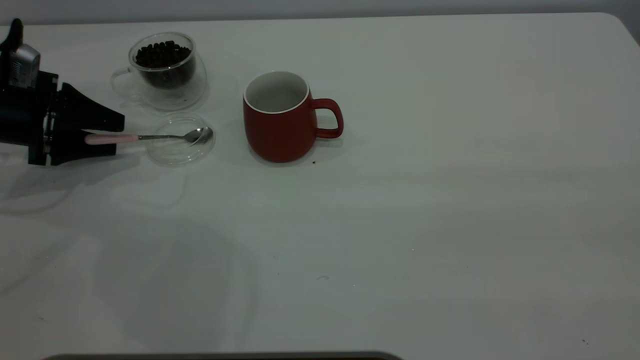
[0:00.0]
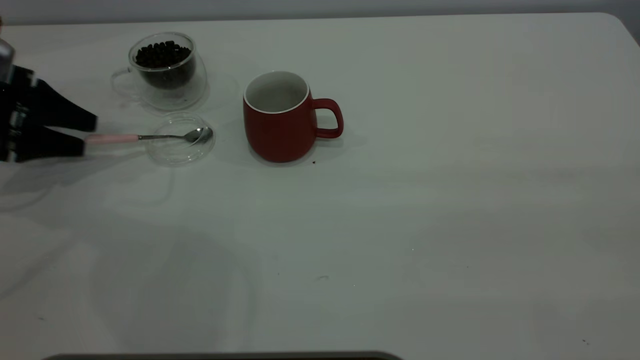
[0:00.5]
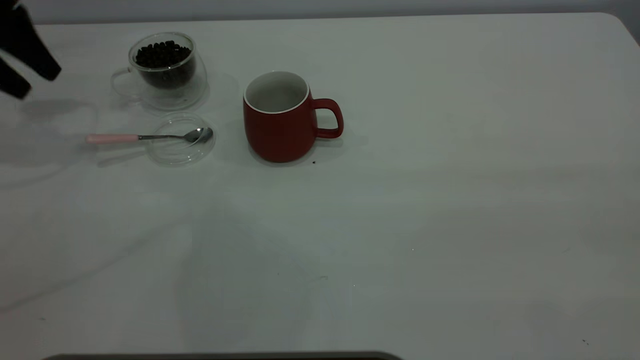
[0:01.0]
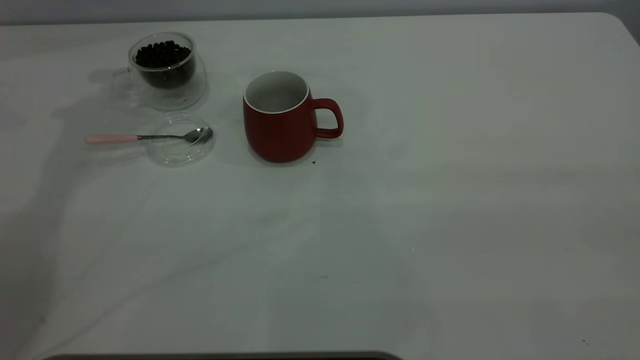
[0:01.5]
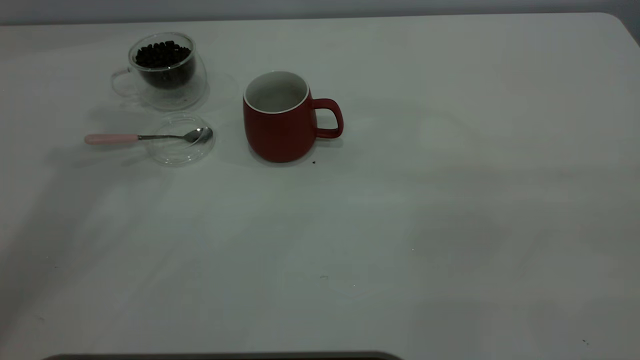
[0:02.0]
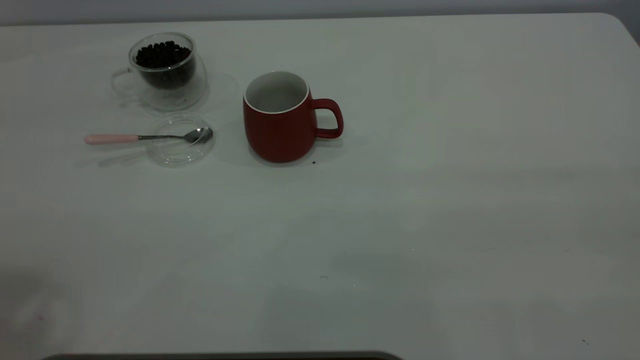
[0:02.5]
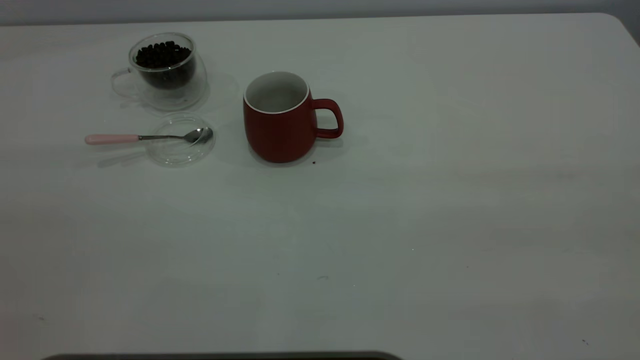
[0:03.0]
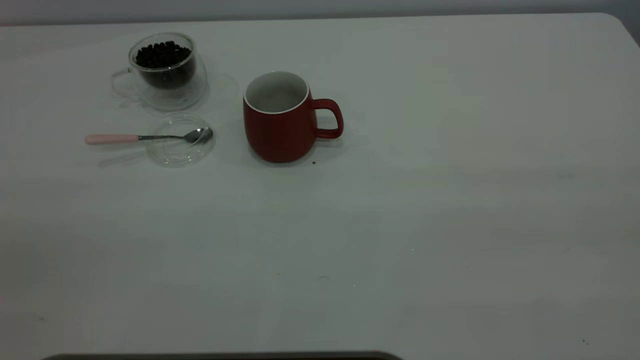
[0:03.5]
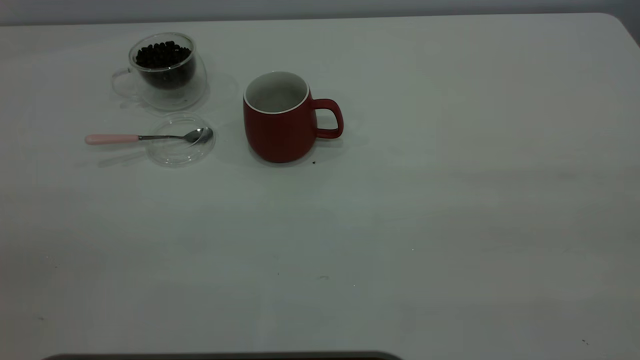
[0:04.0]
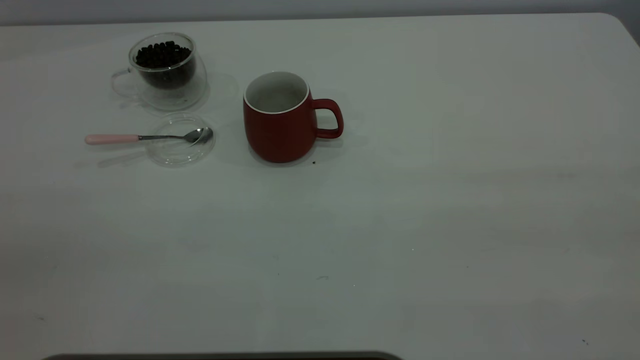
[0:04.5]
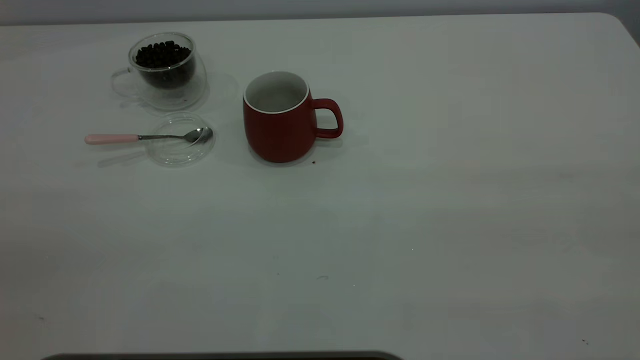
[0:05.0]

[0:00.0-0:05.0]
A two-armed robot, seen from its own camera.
Task of the whole recording: the right gripper place the red cup in the center of the table, the left gripper take the pink spoon from the cup lid and scoop out the coffee beans from the coffee cup and put them into the red cup, the left gripper put the spoon back into the cup lid.
0:00.0 to 0:02.5: The left gripper moves upward and backward, about 50 cm.

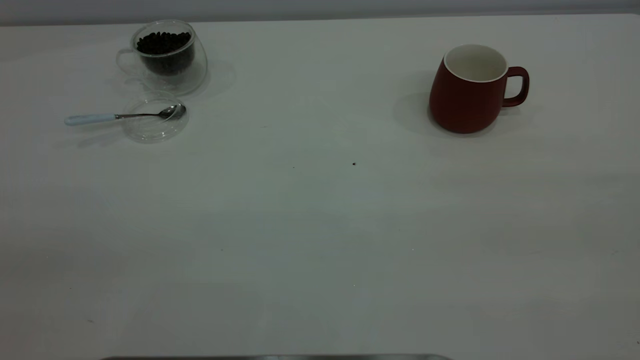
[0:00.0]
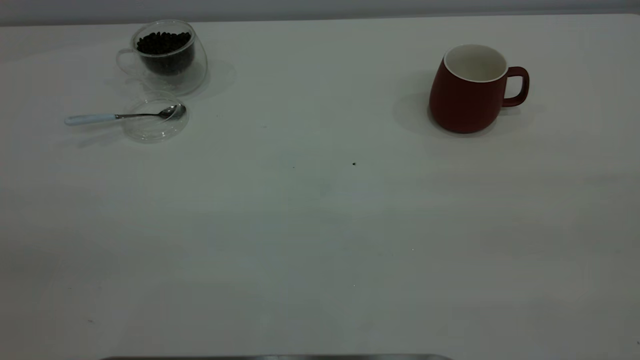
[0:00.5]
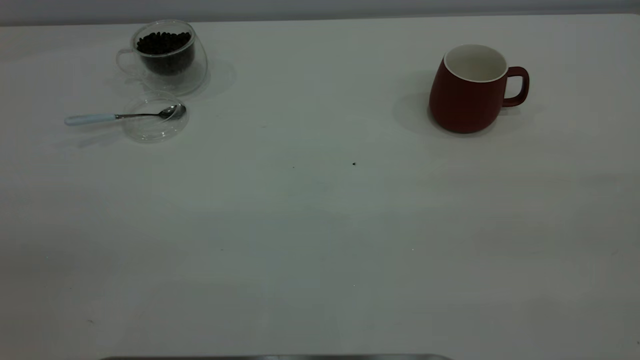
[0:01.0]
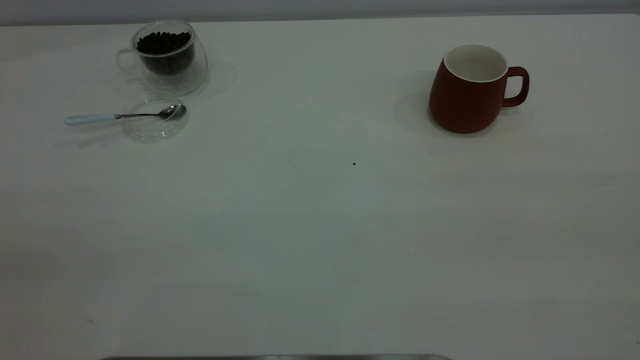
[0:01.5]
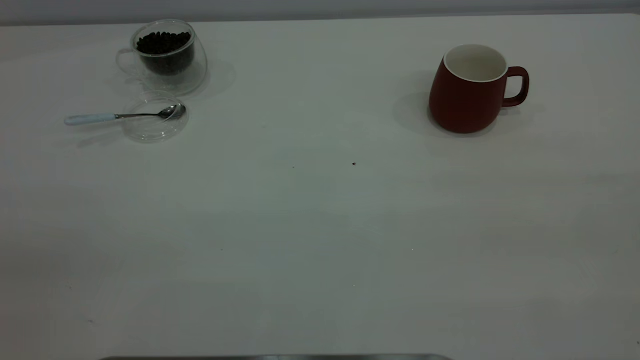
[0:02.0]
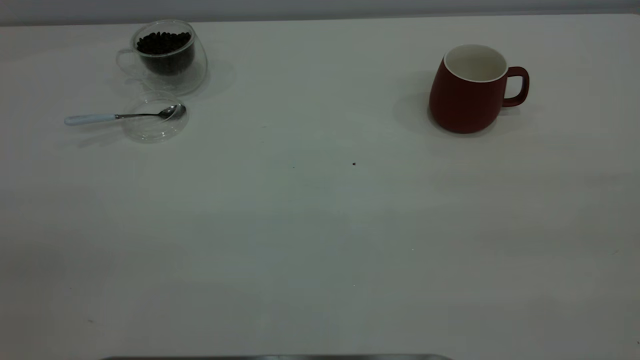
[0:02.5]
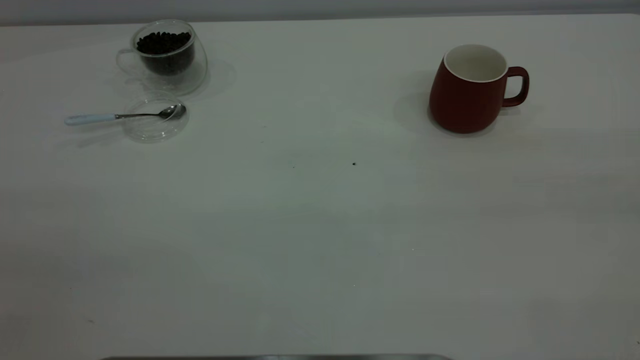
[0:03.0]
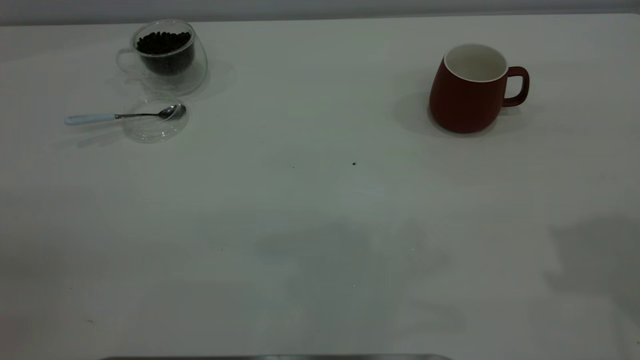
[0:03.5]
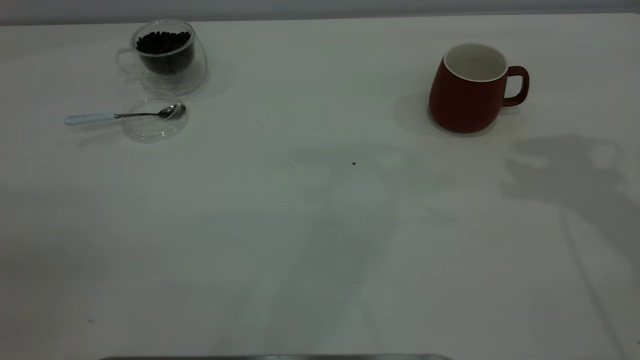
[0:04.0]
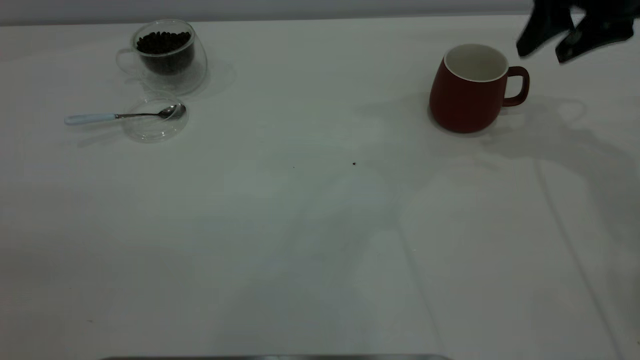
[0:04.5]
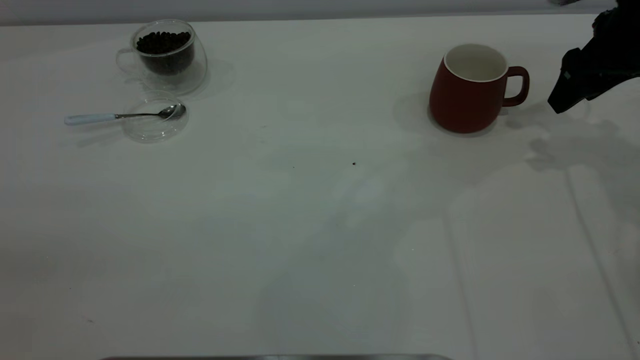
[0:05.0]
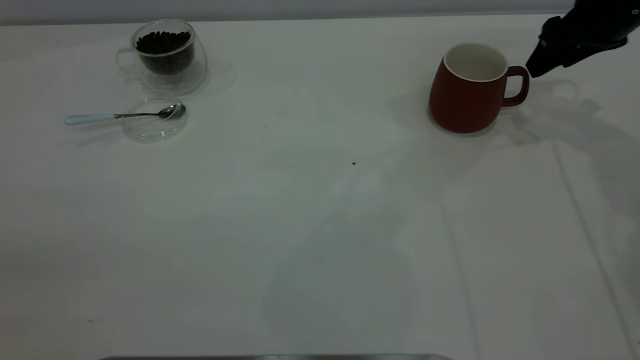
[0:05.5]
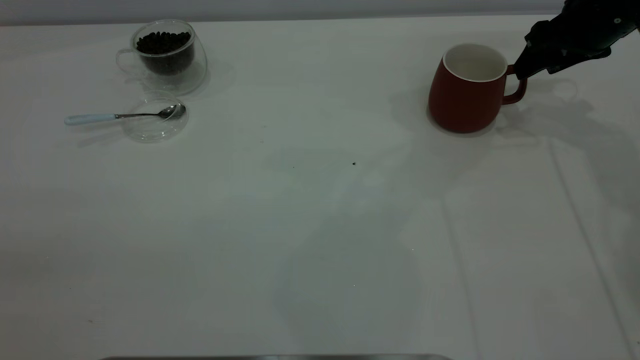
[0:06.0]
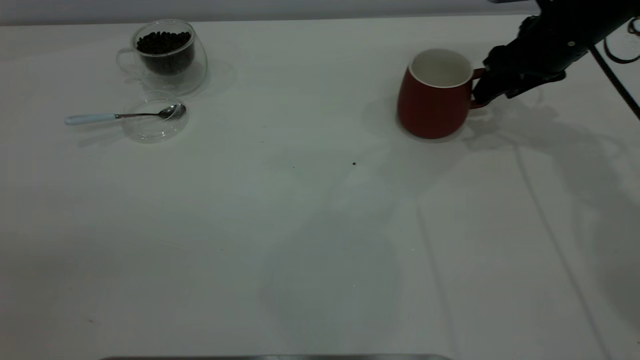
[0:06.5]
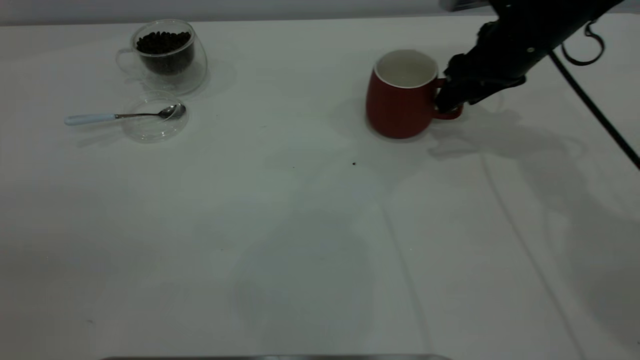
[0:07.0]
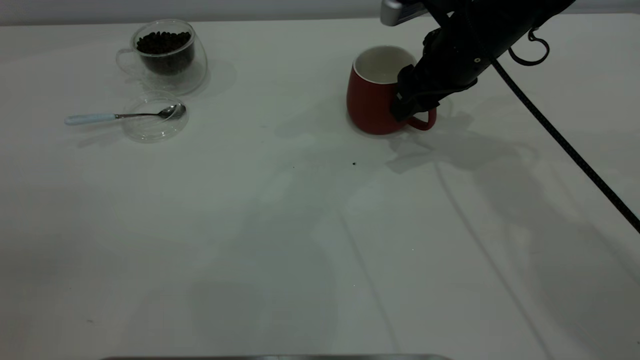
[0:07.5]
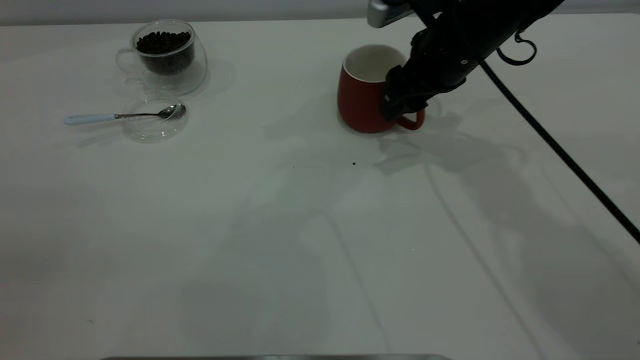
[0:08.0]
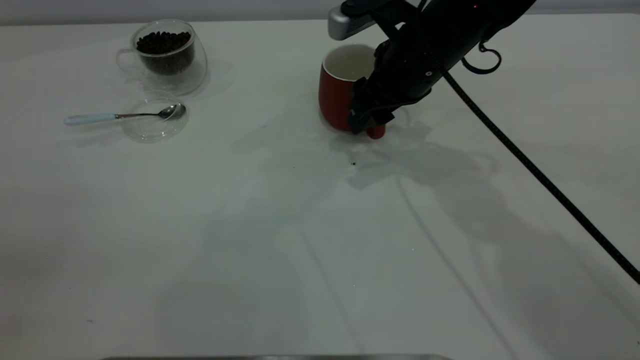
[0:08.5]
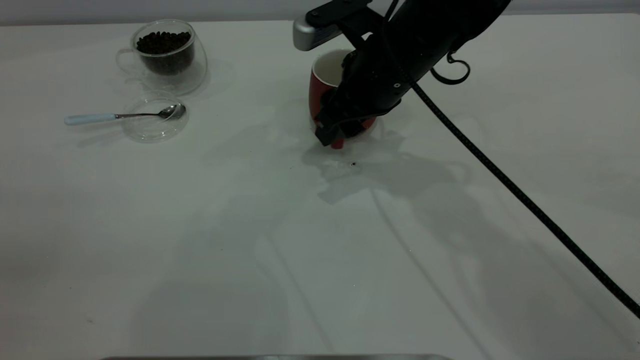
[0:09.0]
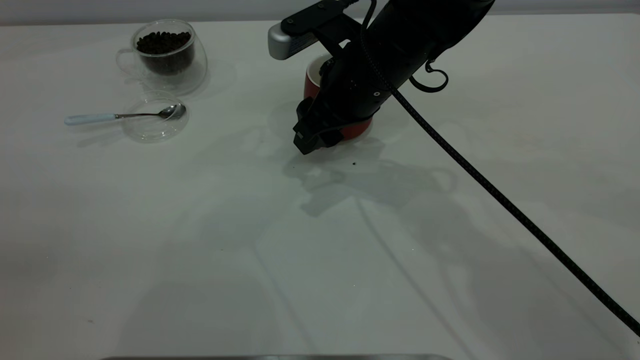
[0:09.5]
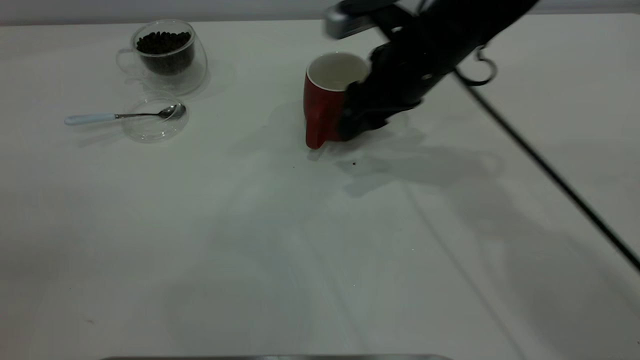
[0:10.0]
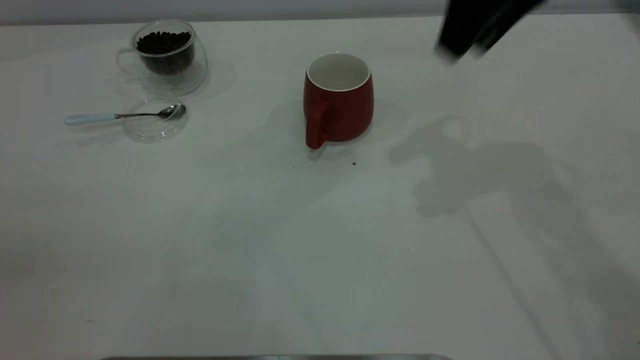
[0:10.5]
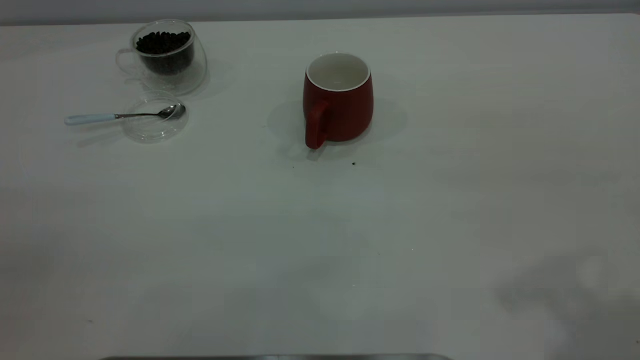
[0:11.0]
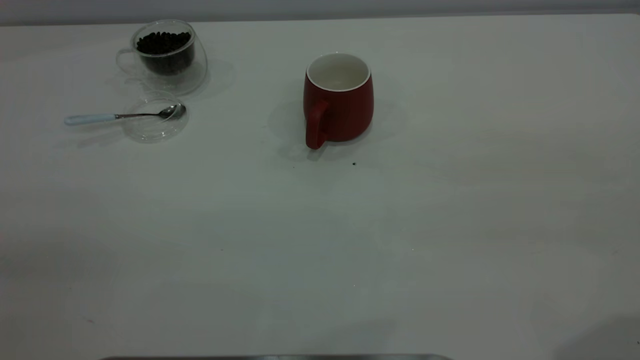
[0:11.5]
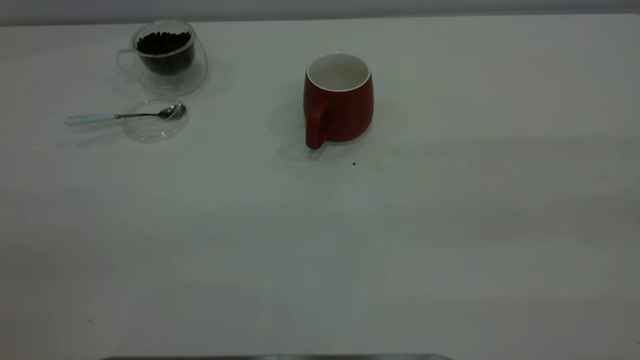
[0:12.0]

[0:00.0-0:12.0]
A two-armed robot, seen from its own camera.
Task of the whole recording: the right gripper place the red cup in the center of the table, the left gripper take the blue spoon from the cup lid and scoop out the coffee beans from the coffee cup and put them into the red cup, the left gripper put the spoon back into the cup lid.
Step, 0:00.0 to 0:10.0: Move the cup to the center of view.
0:00.0 to 0:02.0: The two grippers keep their place.
0:04.0 to 0:06.0: The right gripper heads downward and forward, covering about 20 cm.
0:06.0 to 0:08.0: The right gripper is displaced to the left by about 15 cm.
0:08.0 to 0:10.0: The right gripper goes to the left and returns, approximately 10 cm each way.
0:10.0 to 0:12.0: The right gripper shifts about 40 cm backward, upward and to the right.

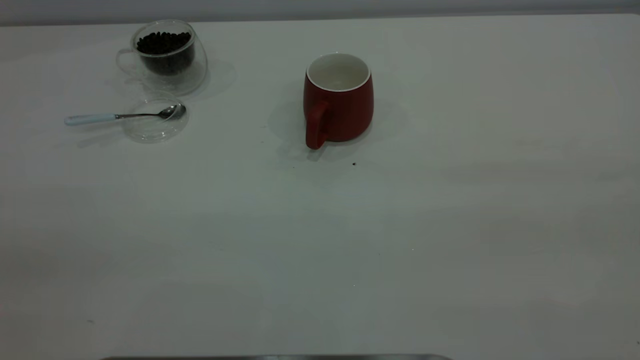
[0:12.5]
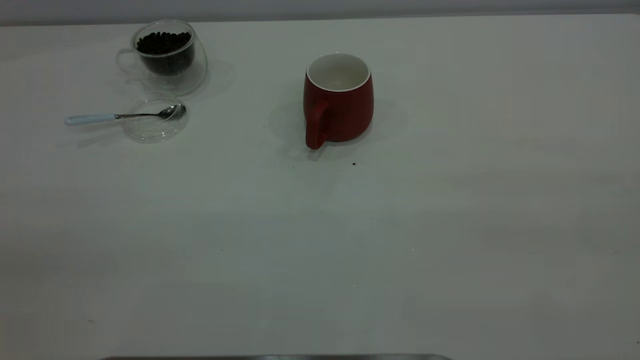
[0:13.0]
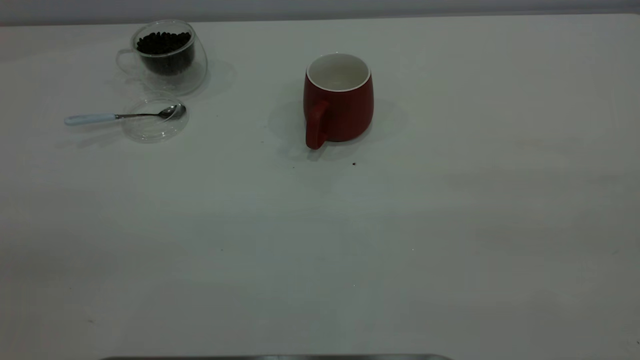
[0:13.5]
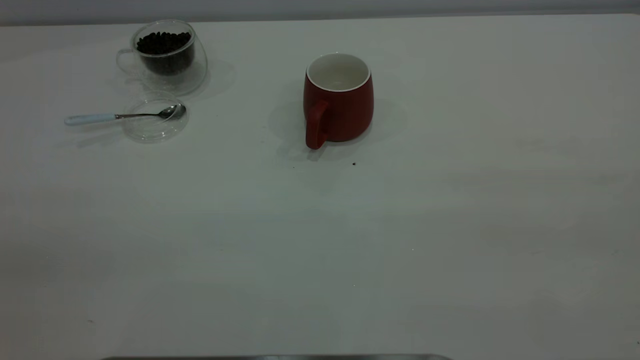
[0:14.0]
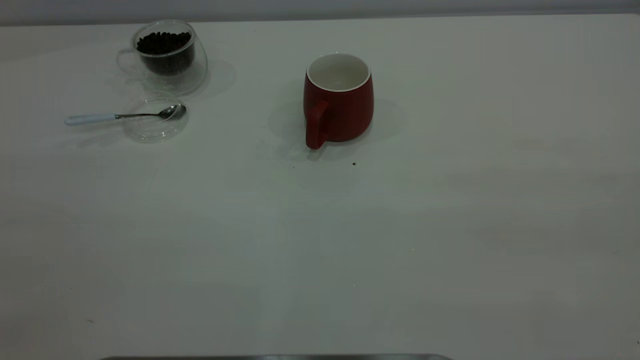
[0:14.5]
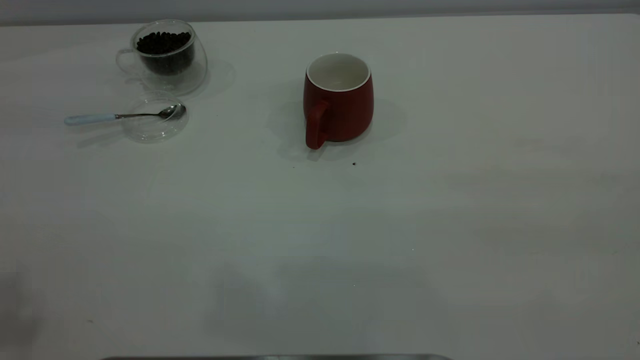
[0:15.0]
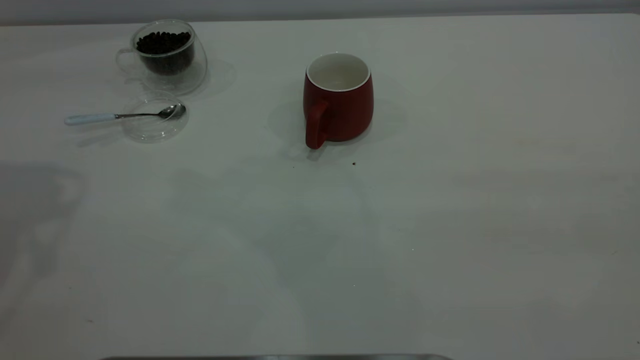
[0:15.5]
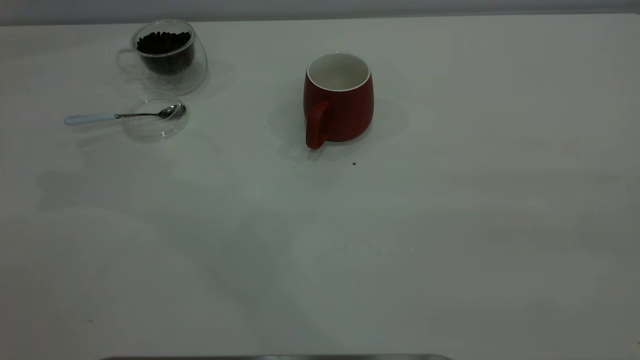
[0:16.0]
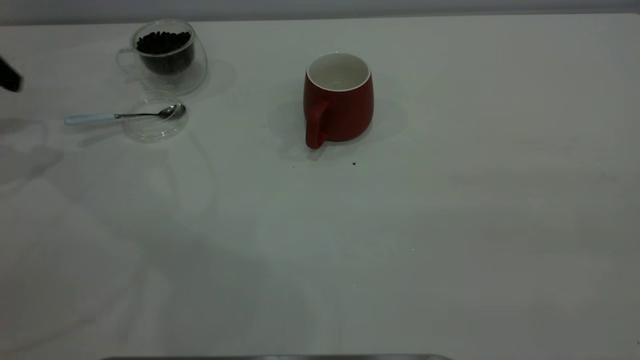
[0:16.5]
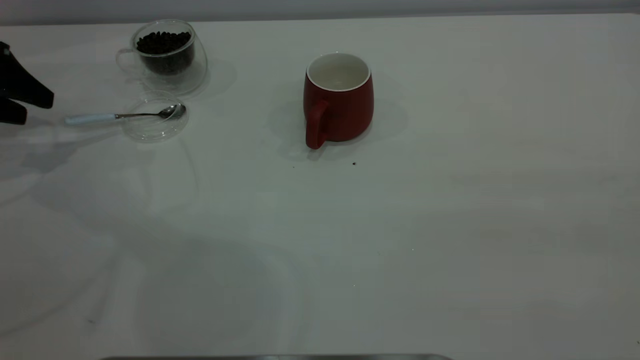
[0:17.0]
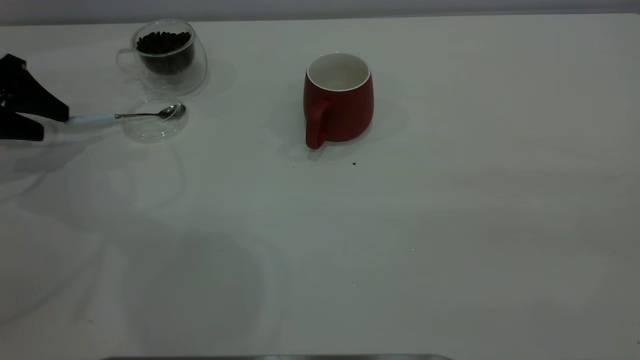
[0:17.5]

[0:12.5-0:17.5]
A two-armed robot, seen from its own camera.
Task of the whole recording: the right gripper place the red cup in the center of the table, the left gripper take the blue spoon from the cup lid and scoop out the coffee beans from the coffee cup and put them into the red cup, the left gripper put the spoon back into the cup lid.
0:15.0 to 0:17.5: The left gripper goes approximately 40 cm downward and forward.
